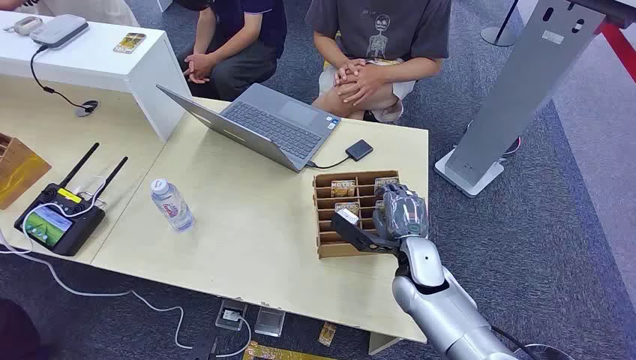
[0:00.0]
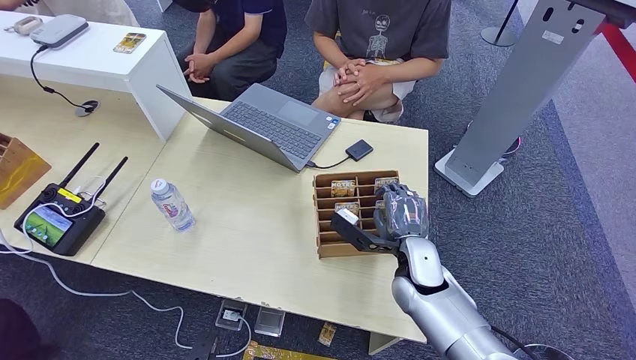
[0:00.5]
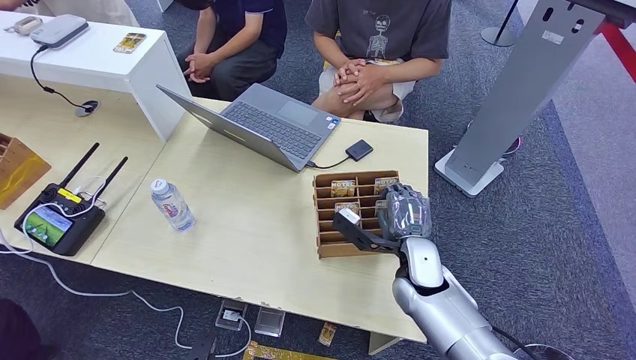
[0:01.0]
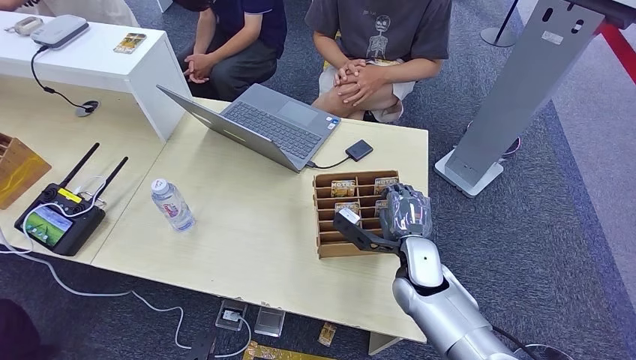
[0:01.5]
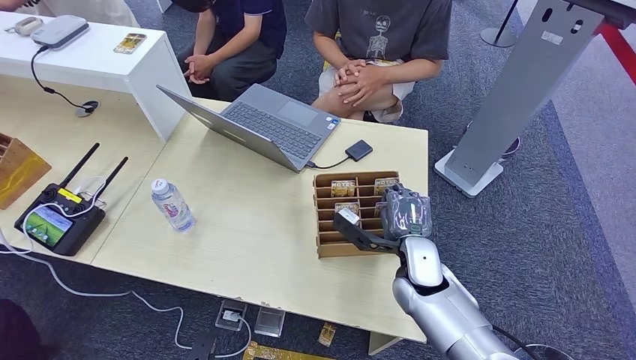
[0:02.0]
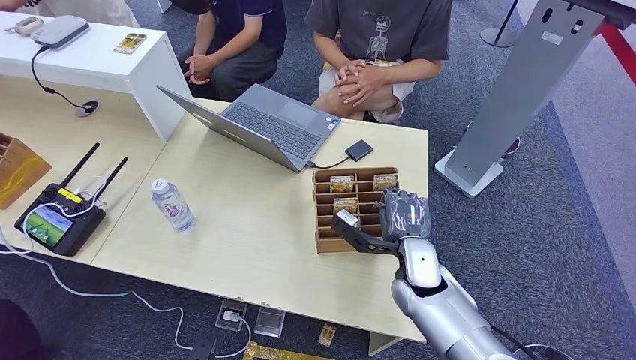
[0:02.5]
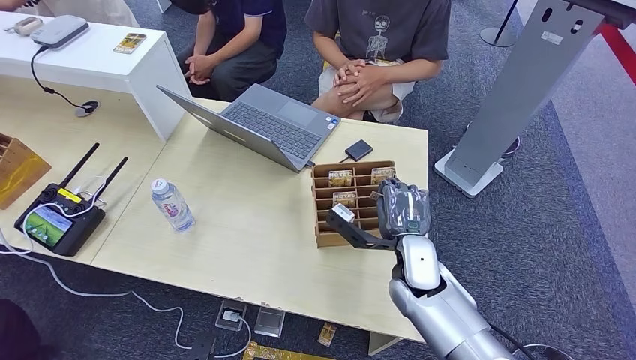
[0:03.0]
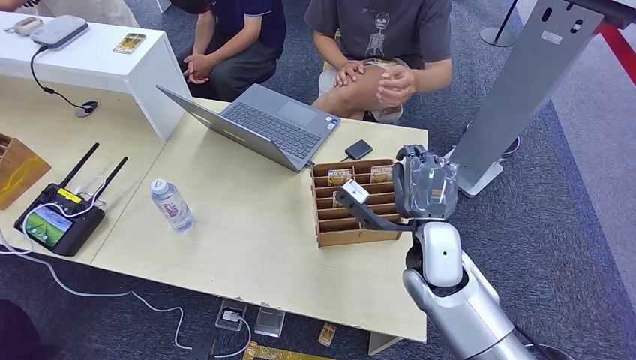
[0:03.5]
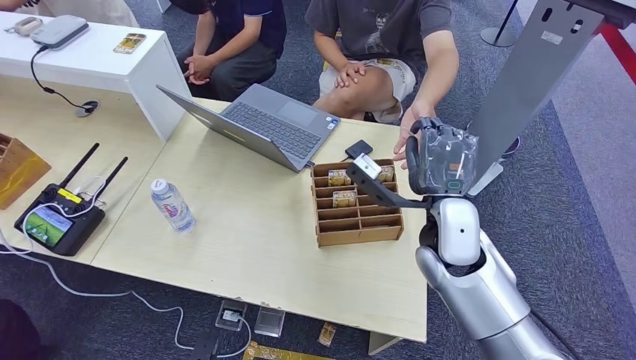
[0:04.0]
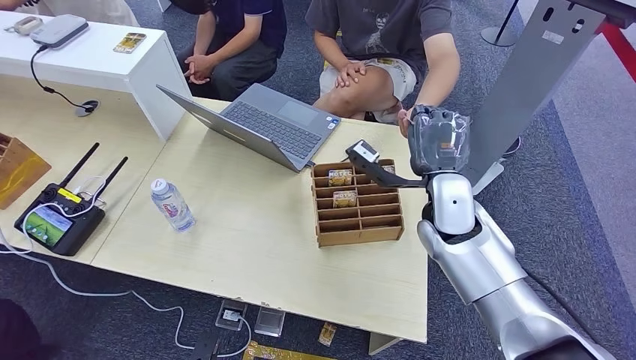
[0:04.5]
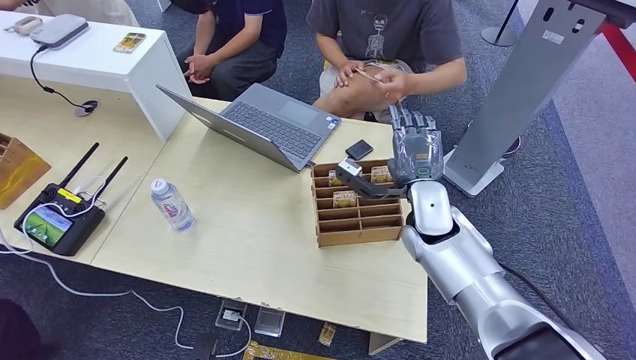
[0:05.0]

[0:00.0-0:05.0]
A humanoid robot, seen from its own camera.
Step, 0:00.0 to 0:03.0: Pick up the room card from the card holder.
Step, 0:03.5 to 0:05.0: Hand the room card to the target.
0:02.5 to 0:05.0: The right hand heads upward and forward, covering approximately 10 cm.
